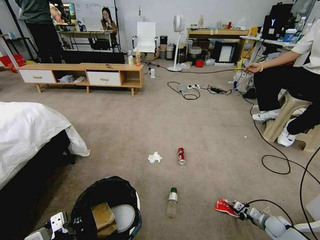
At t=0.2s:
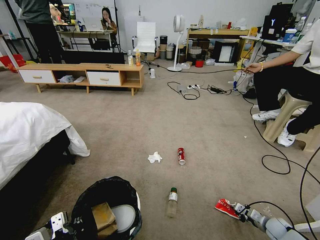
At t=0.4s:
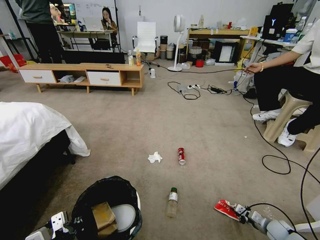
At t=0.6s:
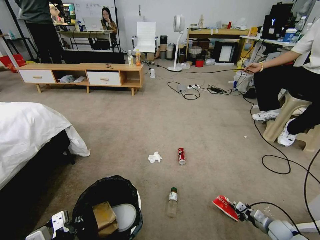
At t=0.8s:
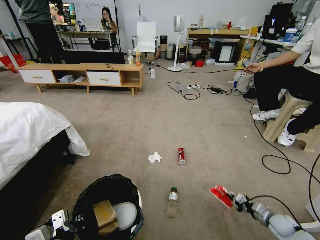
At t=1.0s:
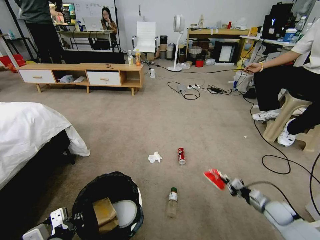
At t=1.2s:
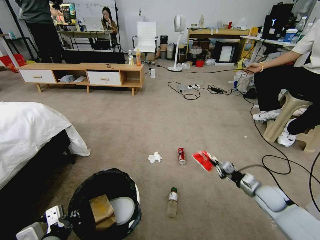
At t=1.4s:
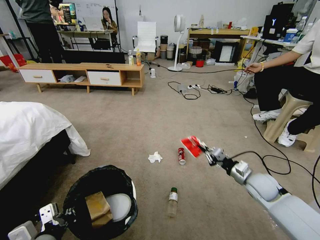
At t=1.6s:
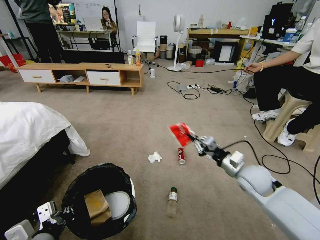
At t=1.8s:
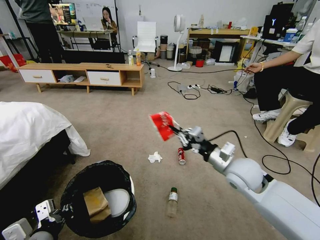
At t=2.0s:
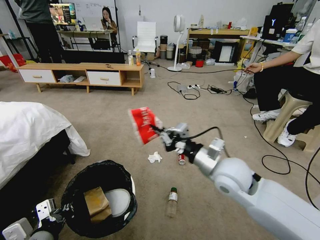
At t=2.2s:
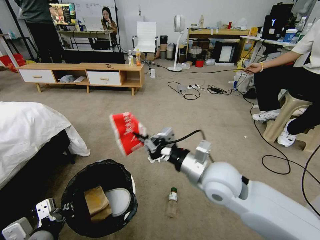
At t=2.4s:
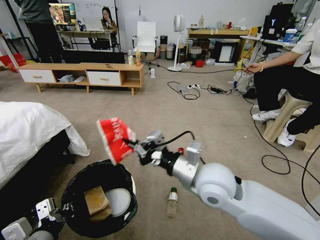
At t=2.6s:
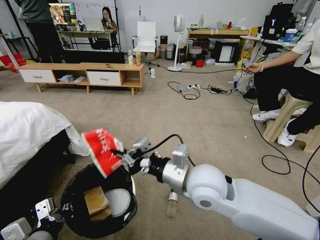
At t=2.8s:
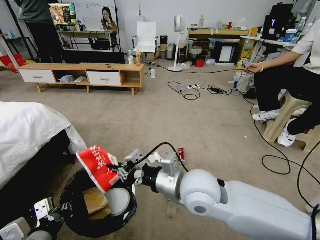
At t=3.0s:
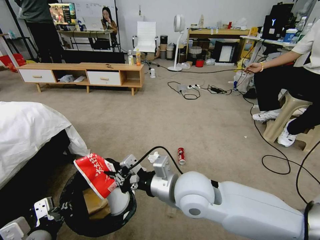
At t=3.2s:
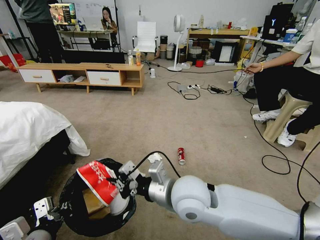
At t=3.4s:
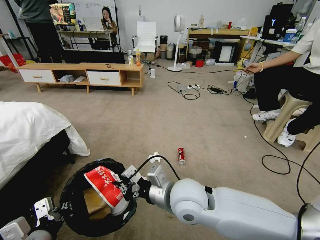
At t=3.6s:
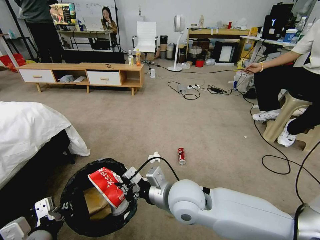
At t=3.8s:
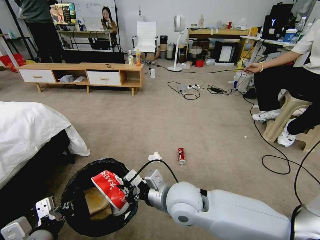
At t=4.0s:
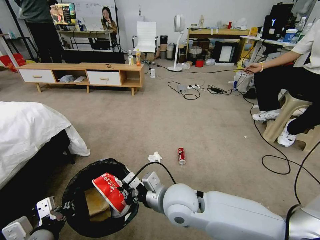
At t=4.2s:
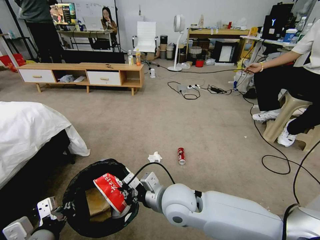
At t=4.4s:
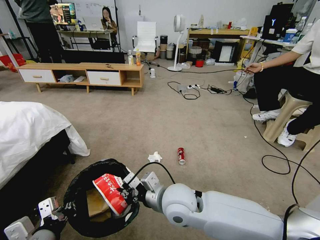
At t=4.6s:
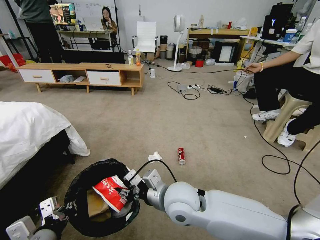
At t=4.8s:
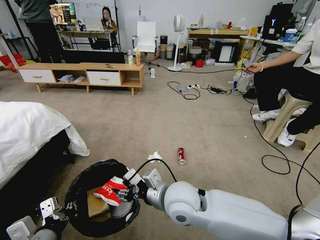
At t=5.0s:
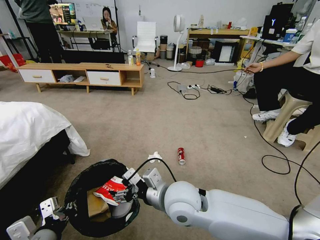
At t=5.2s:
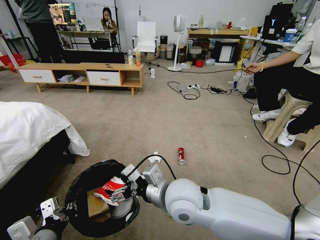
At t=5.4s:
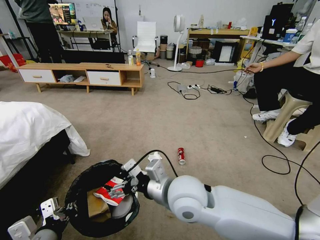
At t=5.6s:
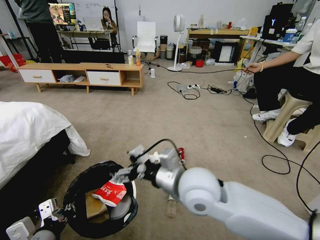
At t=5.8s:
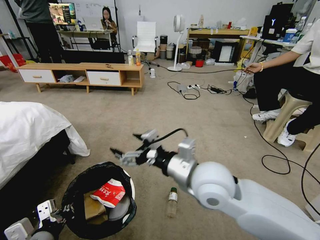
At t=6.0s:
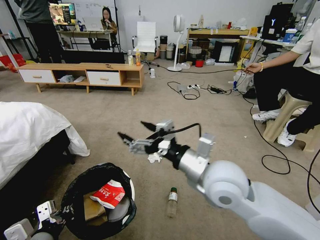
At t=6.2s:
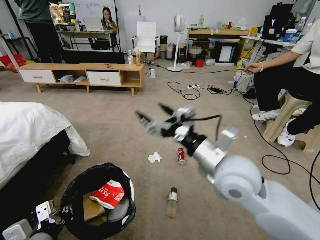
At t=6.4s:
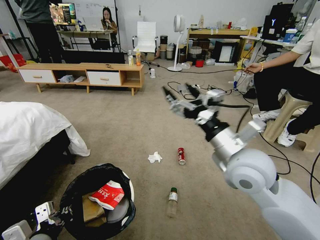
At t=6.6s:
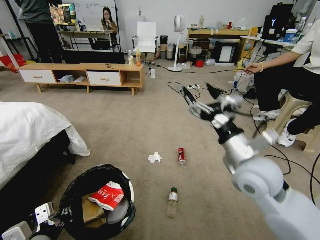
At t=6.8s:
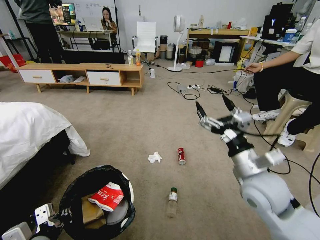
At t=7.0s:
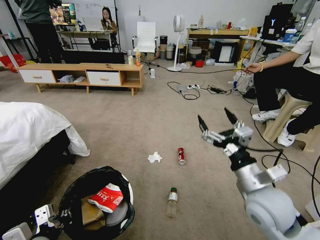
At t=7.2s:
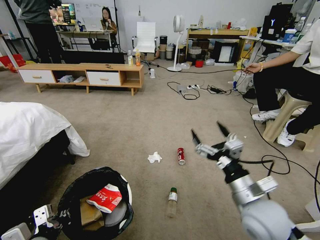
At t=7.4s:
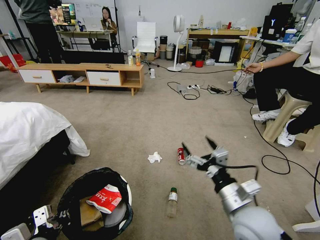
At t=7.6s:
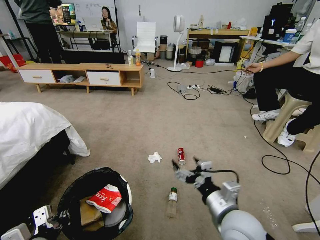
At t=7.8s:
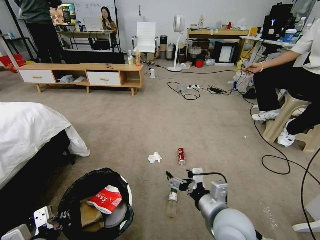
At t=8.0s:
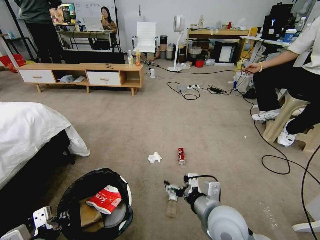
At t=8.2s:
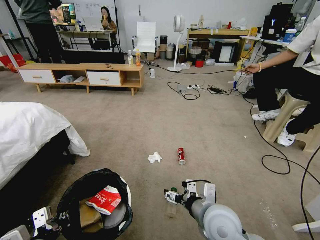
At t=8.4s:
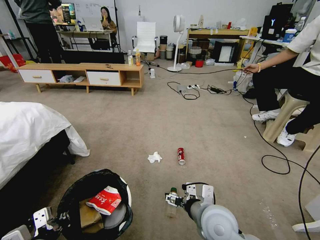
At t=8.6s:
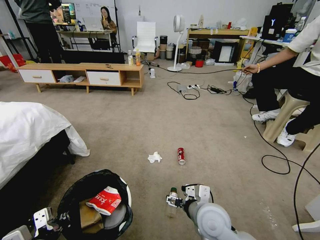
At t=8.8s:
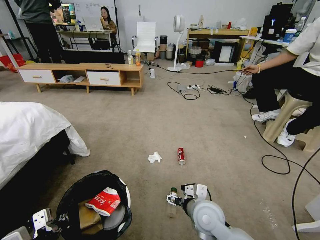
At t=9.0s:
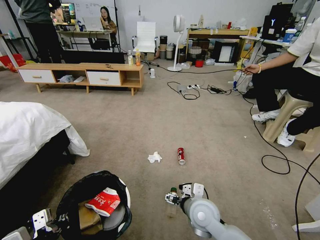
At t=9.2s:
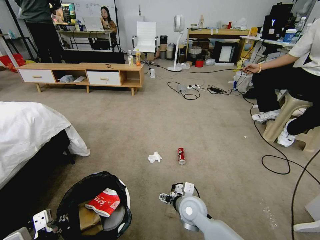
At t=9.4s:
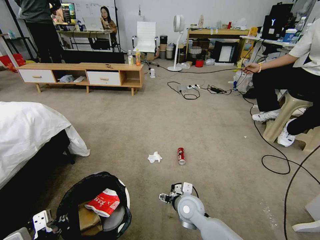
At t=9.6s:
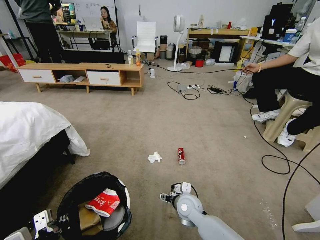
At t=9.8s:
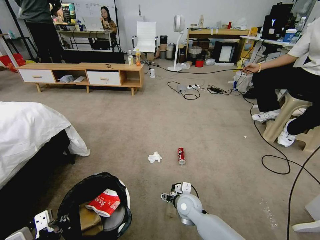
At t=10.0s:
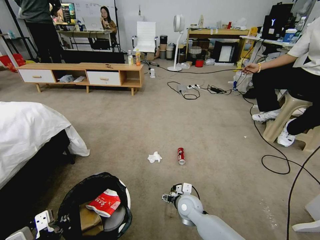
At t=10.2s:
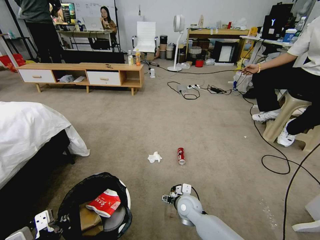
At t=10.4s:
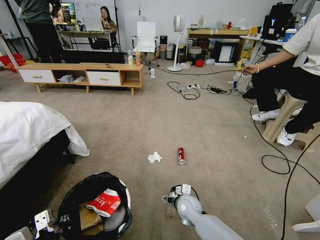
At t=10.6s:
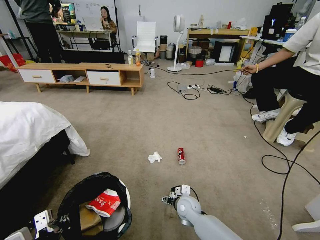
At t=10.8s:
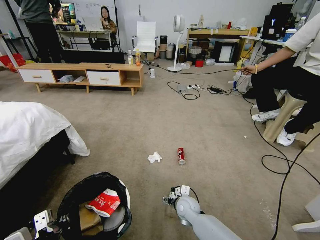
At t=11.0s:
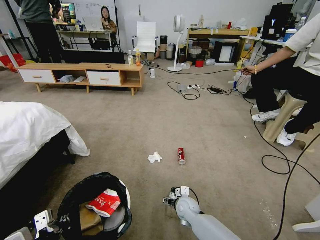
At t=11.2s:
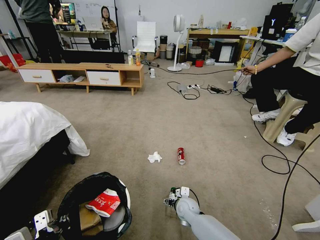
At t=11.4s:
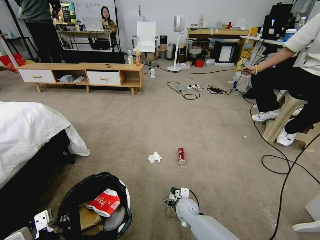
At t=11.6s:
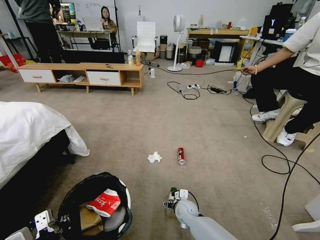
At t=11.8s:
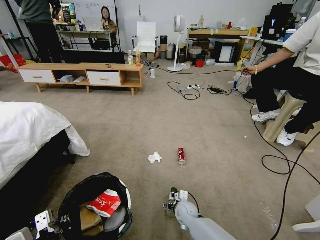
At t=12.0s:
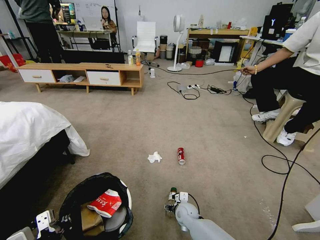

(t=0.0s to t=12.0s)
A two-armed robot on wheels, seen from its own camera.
Task of the whole recording: Pick up the trash bin and place the garbage on the floor into it.
t=0.0s - t=1.6s: The right gripper goes approximately 30 cm upward and to the left.
t=1.6s - t=3.0s: The right gripper shifts some 30 cm to the left and upward.
t=3.0s - t=4.4s: The right gripper goes about 5 cm downward.
t=4.4s - t=6.0s: The right gripper is displaced upward and to the right by some 15 cm, and opens its fingers.
t=6.0s - t=7.6s: The right gripper goes about 15 cm downward, backward and to the right.
t=7.6s - t=9.0s: The right gripper shifts about 15 cm downward, forward and to the left.
t=9.0s - t=10.4s: The right gripper shifts roughly 15 cm downward and forward.
t=10.4s - t=12.0s: The right gripper is displaced downward by some 5 cm.

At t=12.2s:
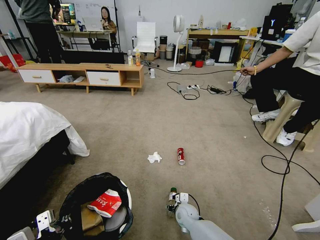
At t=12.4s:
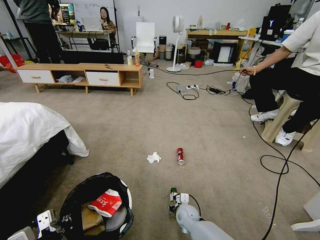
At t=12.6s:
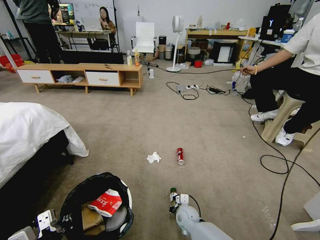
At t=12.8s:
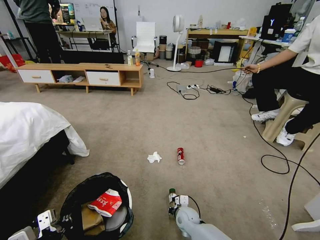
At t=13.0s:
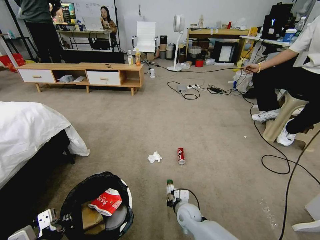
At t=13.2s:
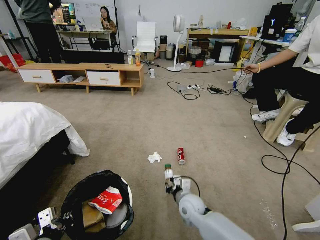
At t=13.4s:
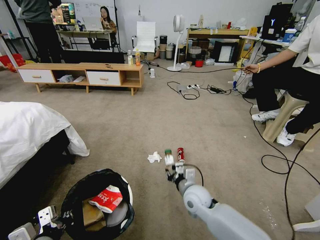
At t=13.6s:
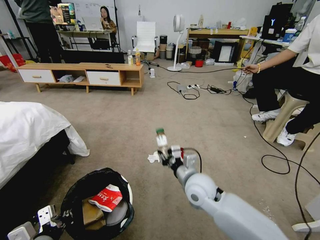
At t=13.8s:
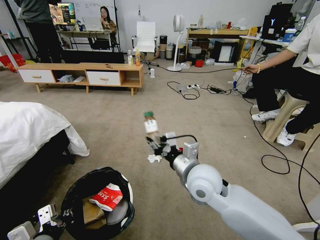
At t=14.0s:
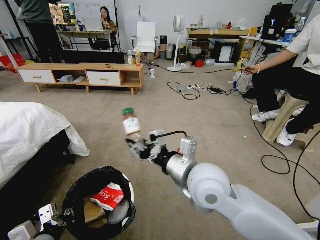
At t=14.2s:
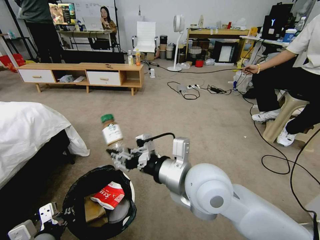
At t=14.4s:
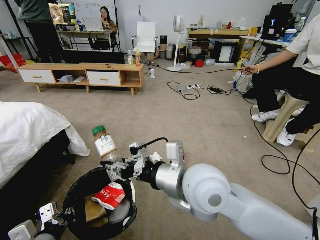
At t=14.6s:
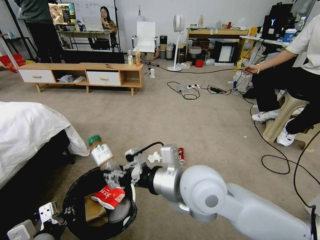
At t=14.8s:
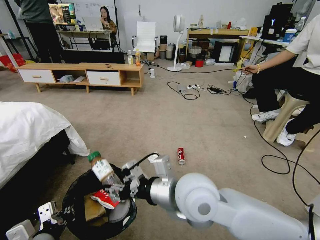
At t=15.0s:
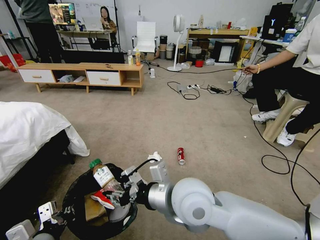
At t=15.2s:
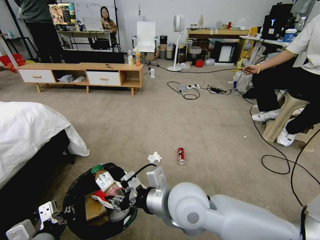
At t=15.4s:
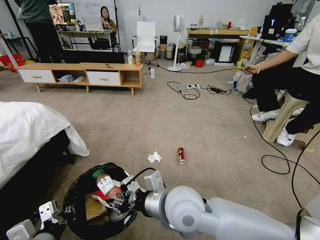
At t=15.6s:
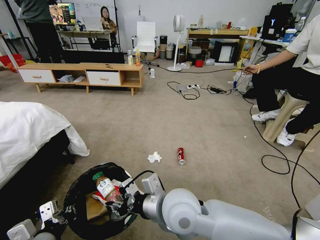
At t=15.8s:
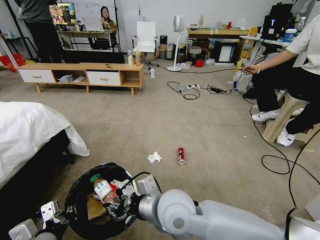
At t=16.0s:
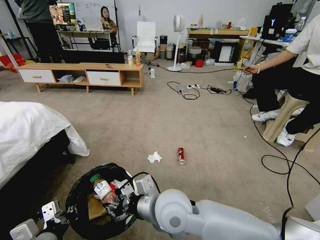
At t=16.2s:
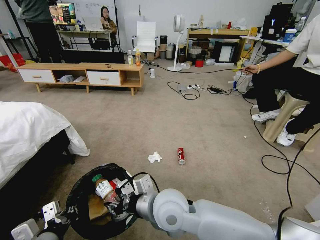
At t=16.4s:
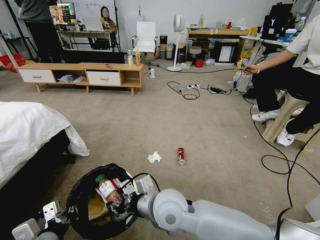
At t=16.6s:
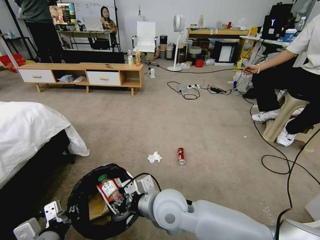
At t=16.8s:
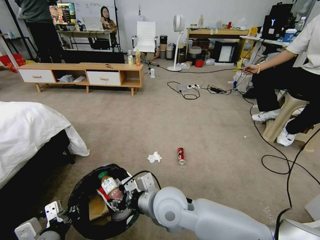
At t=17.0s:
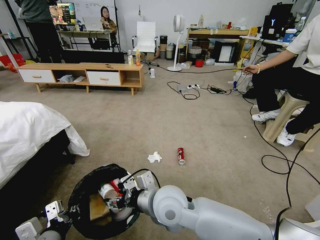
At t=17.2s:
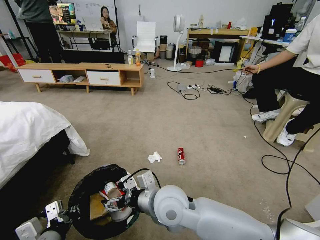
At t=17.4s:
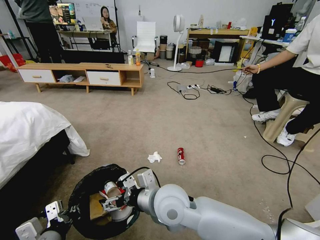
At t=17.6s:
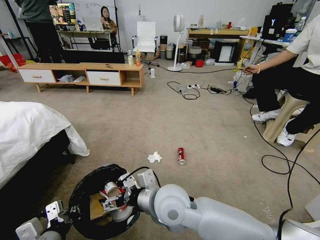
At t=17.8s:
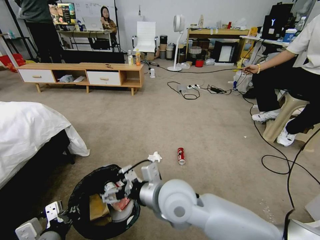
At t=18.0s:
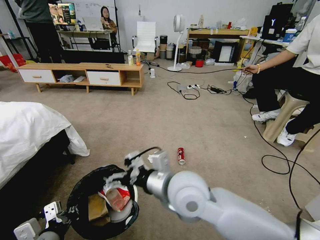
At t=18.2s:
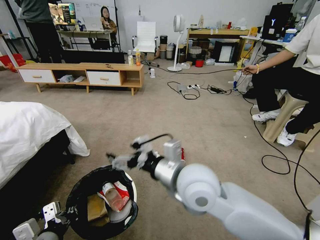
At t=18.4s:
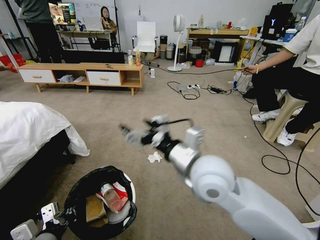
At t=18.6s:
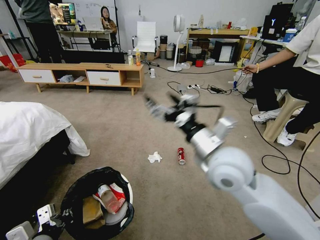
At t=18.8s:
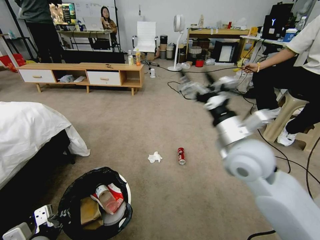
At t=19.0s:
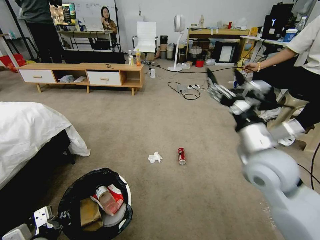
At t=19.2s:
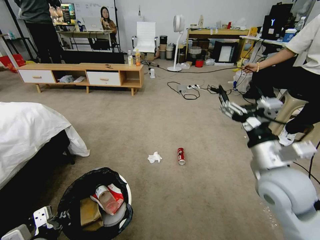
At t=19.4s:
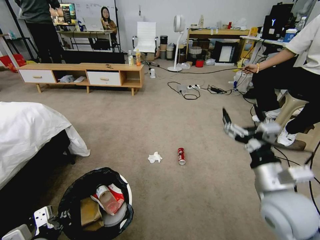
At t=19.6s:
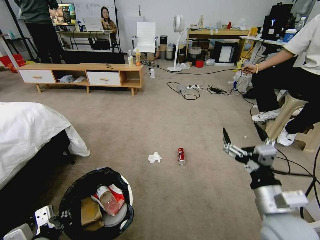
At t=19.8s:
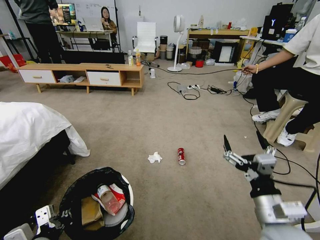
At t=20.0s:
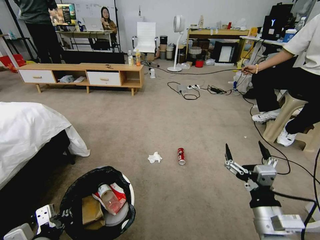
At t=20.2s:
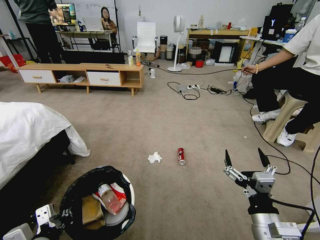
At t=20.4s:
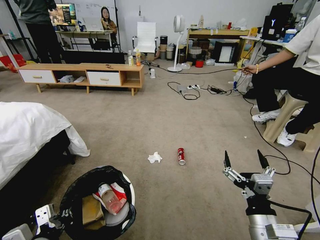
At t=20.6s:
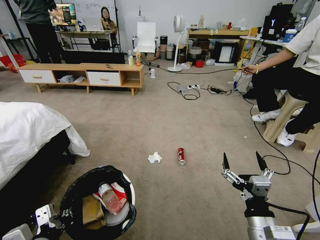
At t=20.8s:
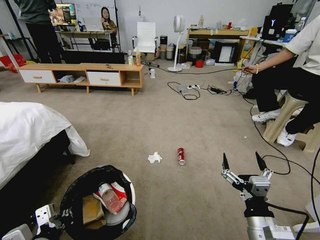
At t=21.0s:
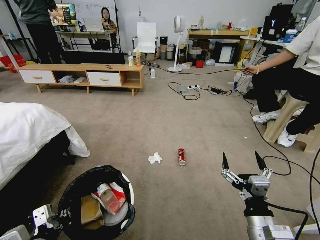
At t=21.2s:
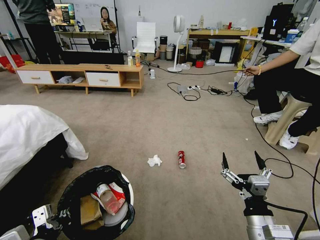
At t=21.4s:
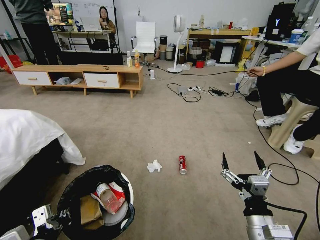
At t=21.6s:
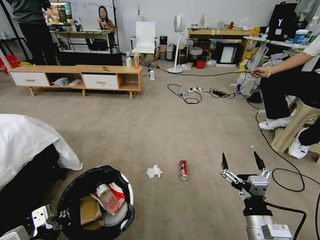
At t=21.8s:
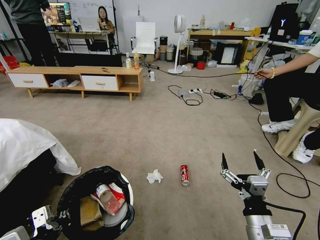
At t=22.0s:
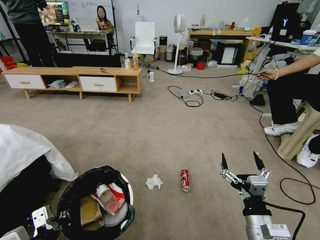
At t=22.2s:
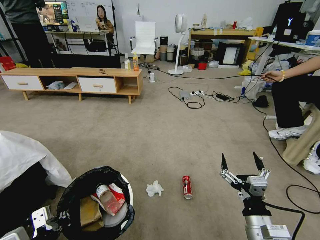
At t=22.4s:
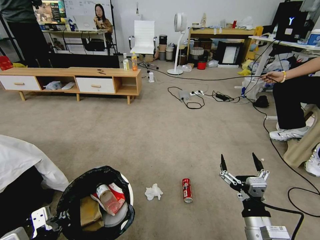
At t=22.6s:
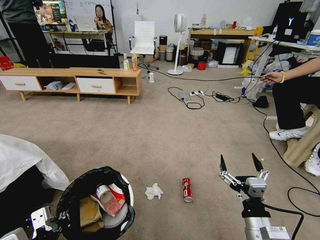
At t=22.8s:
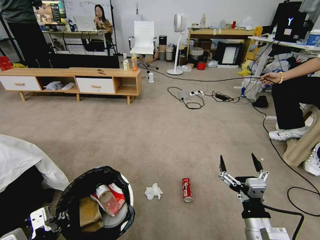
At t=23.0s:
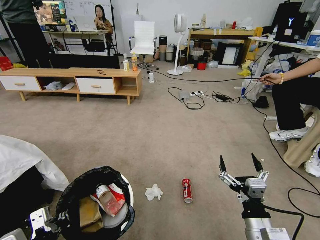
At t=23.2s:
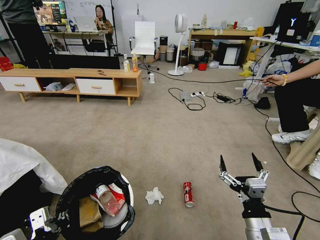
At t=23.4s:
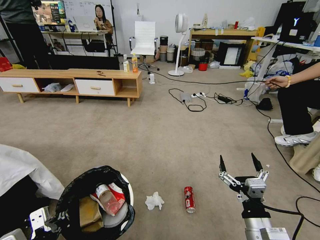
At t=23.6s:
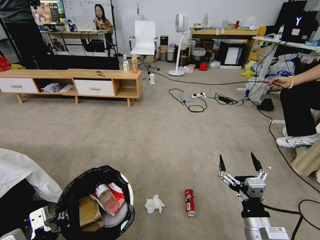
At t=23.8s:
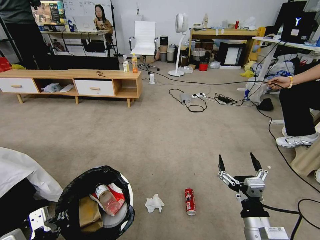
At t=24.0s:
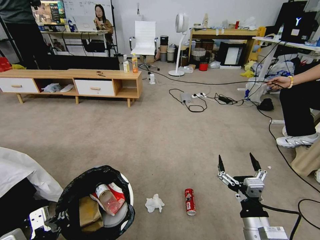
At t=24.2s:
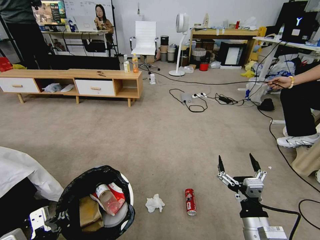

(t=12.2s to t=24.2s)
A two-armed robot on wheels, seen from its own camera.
Task of the whole recording: Pick up the trash bin and place the garbage on the floor into it.
t=12.2s - t=13.8s: The right gripper heads upward, covering about 35 cm, and closes its fingers.
t=13.8s - t=15.2s: The right gripper shifts some 10 cm backward and to the left, and reaches roughly 10 cm upward, then returns.
t=15.2s - t=16.6s: The right gripper travels downward by roughly 5 cm.
t=16.6s - t=18.2s: The right gripper travels upward and to the right by approximately 15 cm, and opens its fingers.
t=18.2s - t=19.8s: The right gripper travels to the right, downward and backward by roughly 25 cm.
t=19.8s - t=21.2s: The right gripper shifts approximately 5 cm downward.
